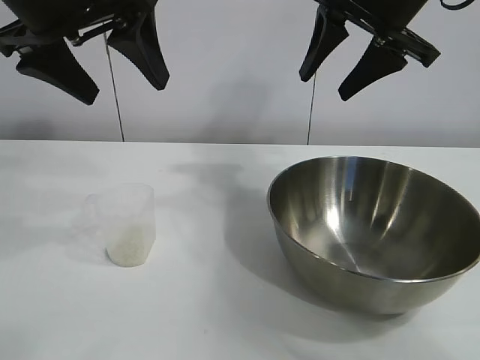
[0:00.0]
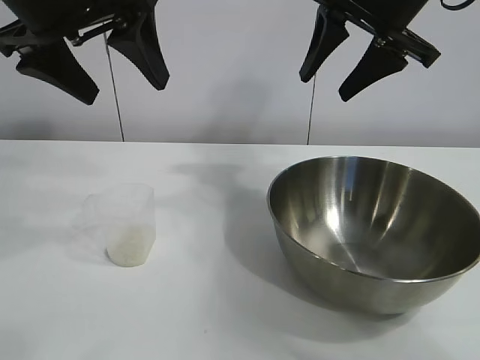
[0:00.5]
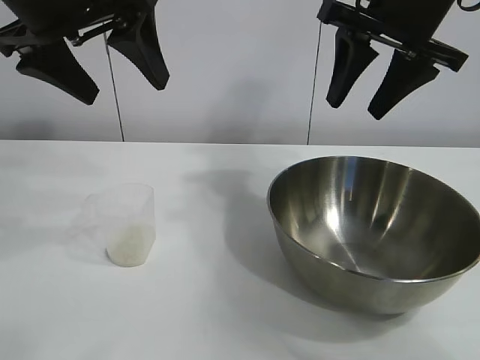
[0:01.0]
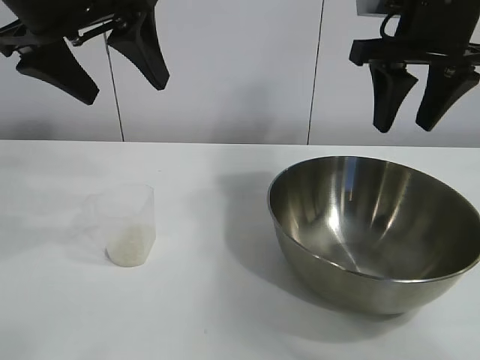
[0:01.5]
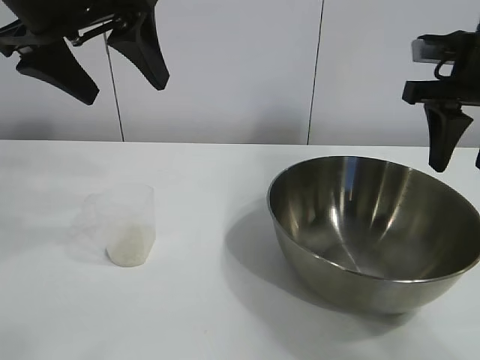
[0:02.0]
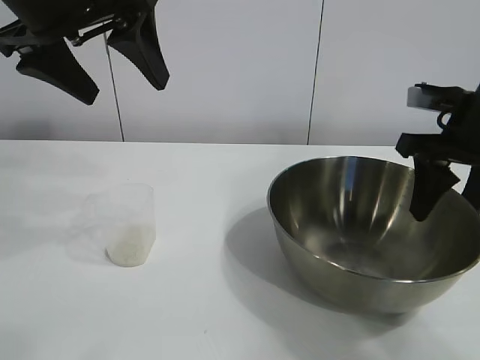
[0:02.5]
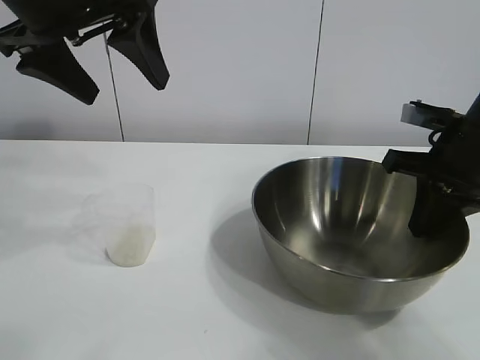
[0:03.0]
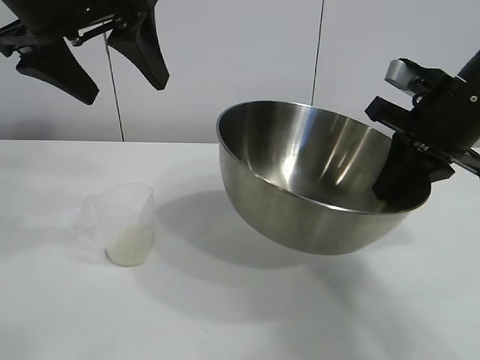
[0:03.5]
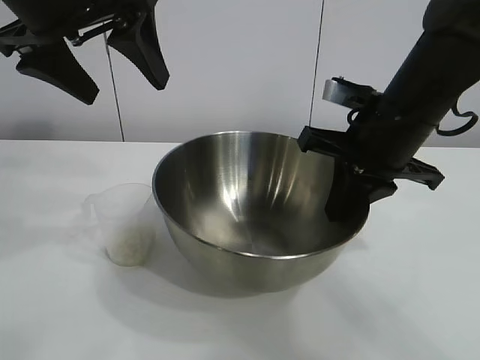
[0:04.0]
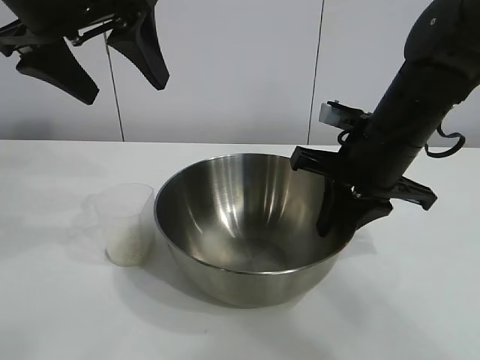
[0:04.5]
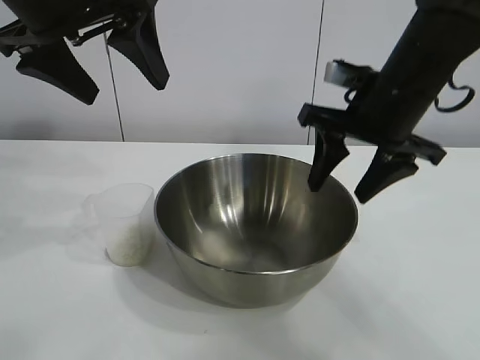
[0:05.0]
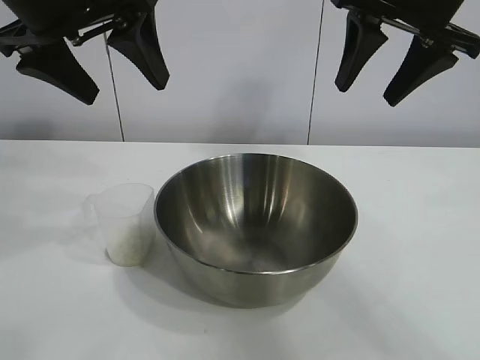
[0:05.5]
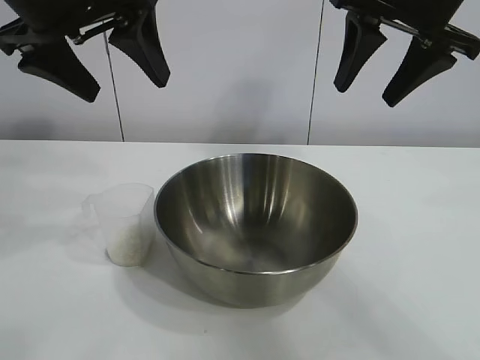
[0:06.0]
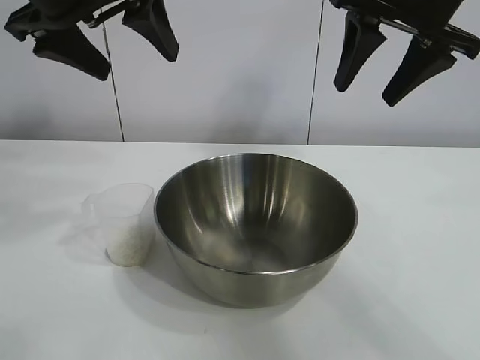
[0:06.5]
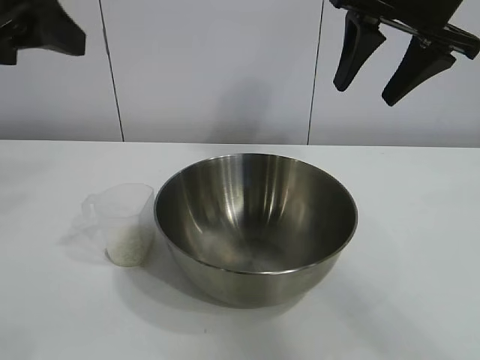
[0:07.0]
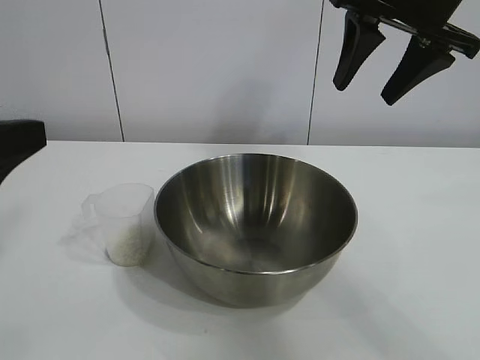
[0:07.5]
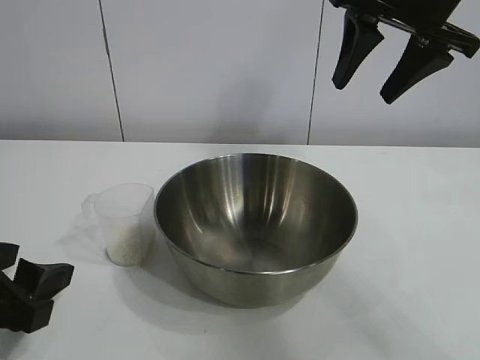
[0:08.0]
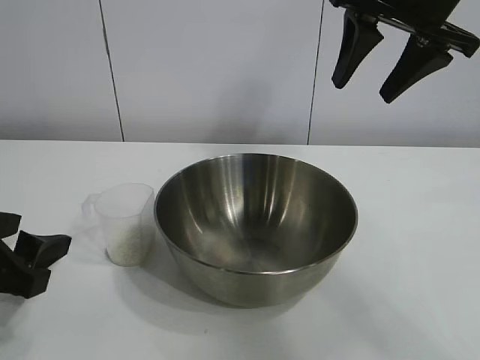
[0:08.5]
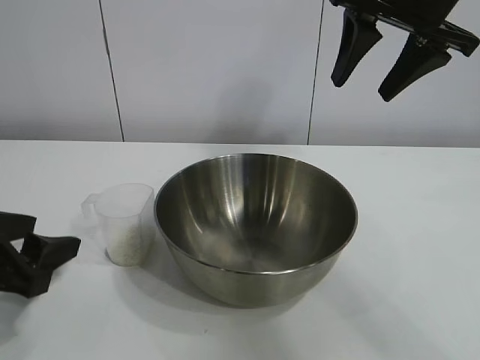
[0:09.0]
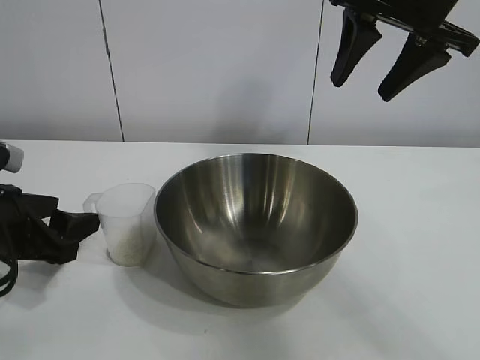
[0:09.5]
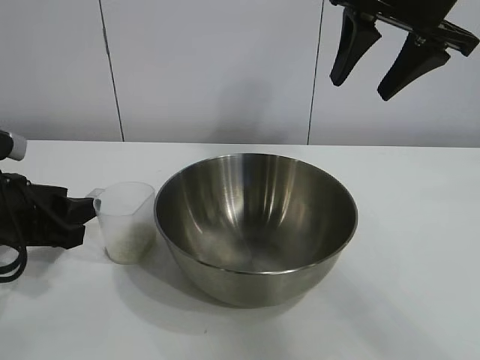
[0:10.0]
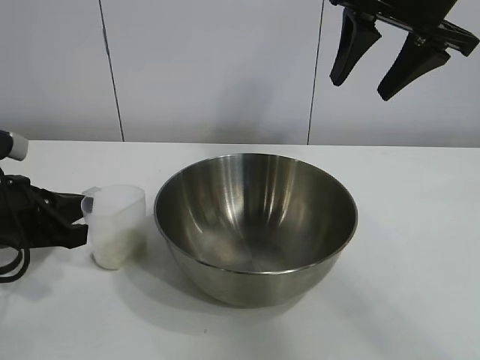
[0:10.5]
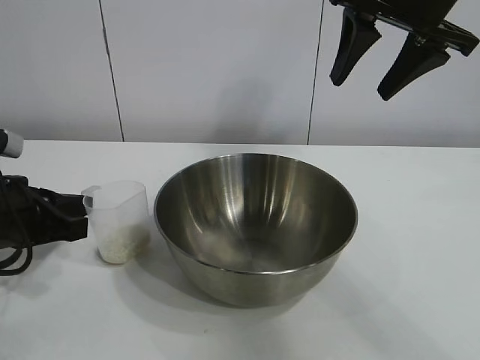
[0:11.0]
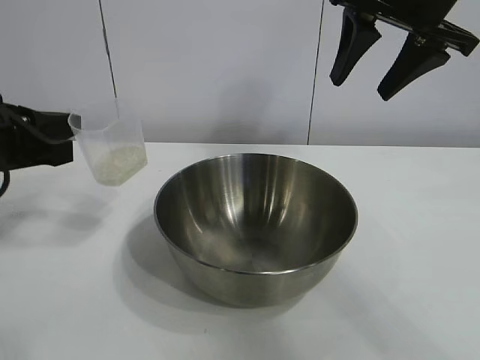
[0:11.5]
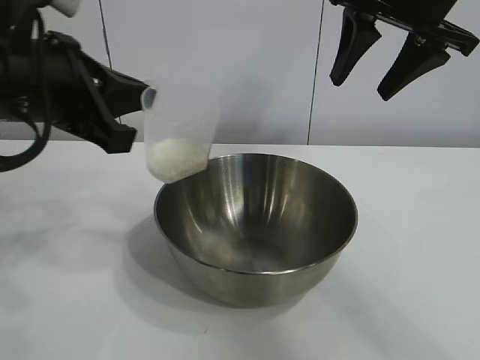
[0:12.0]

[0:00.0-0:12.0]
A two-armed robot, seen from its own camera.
Task of the whole recording: the right gripper grasp the rice container and place it in the center of the table, the left gripper grasp the rice scoop and pour the rice into the rice container.
Step, 0:01.0 to 0:04.0: Move the bowl in the center of view with right gripper.
Step, 0:04.5 to 0:10.5: Grasp the cup with rice in it with left gripper.

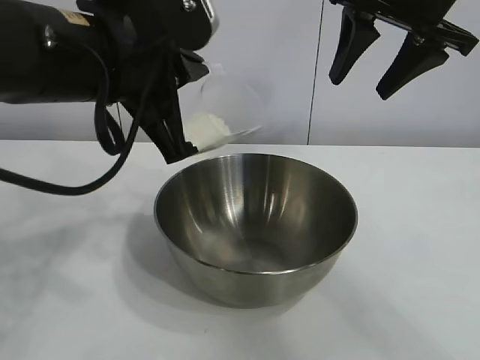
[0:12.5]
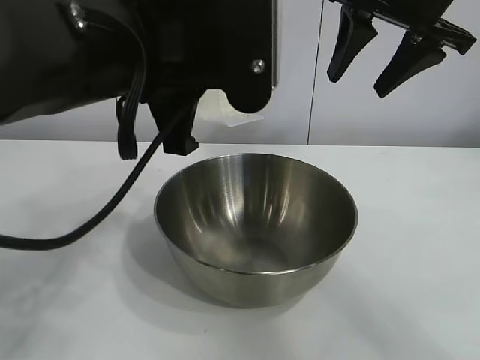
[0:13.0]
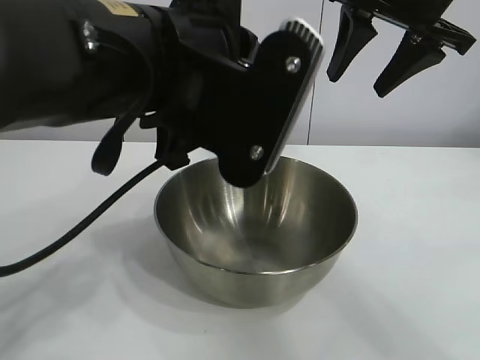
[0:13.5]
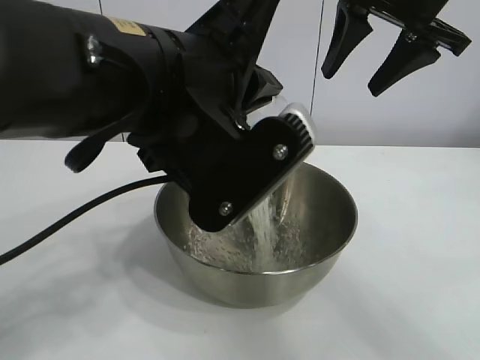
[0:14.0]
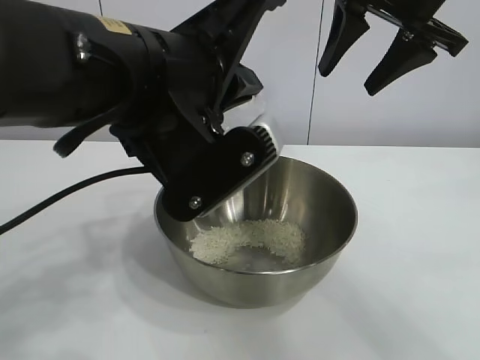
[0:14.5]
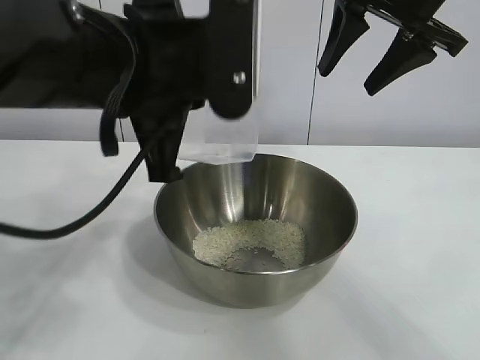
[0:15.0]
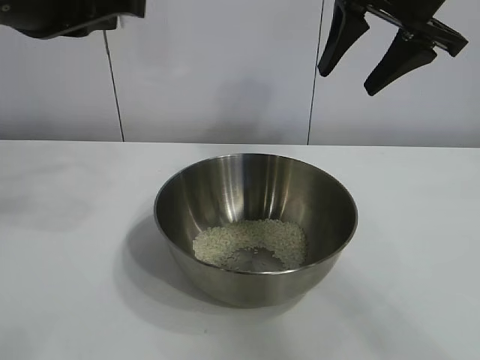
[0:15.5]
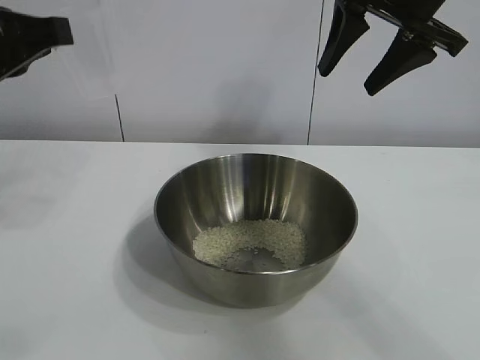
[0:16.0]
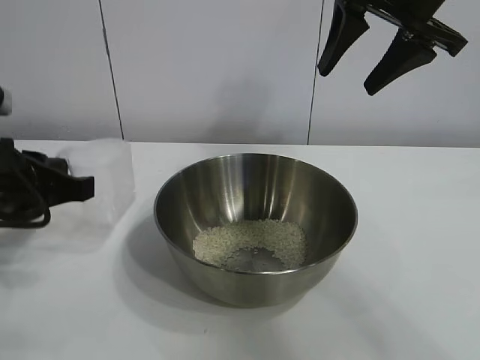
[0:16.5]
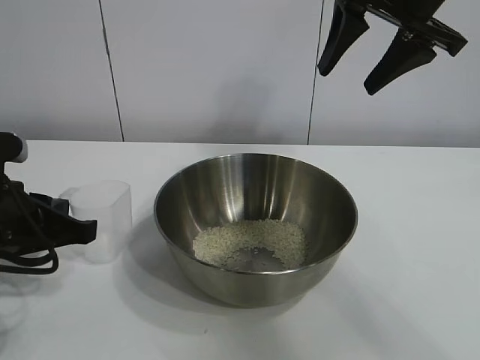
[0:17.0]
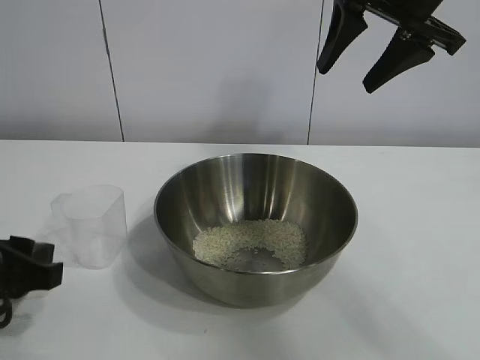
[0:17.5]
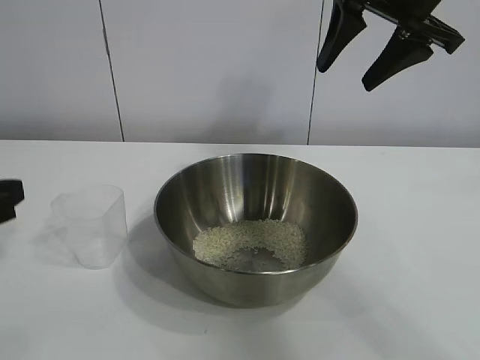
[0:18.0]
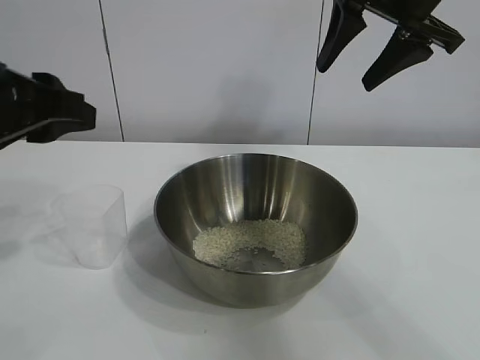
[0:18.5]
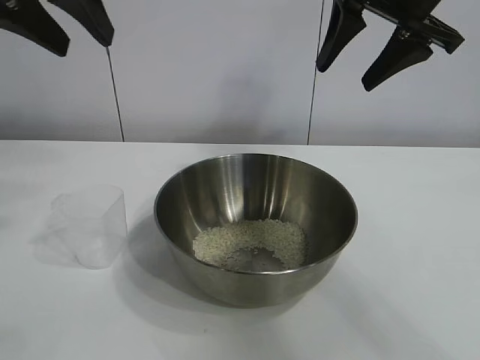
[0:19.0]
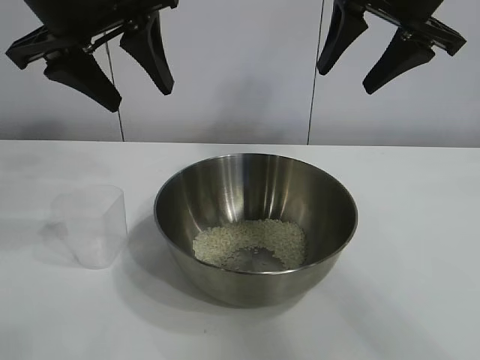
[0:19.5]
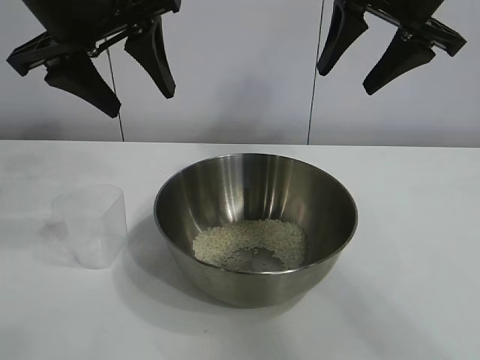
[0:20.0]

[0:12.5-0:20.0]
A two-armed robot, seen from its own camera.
Task of the whole recording: the right gripper grasp the rice container and place it in the center of the table, the left gripper grasp the rice scoop and pour the rice into the rice container.
Step, 0:12.5 to 0:14.5: Pour the rice from the cup into the bowl with the left gripper.
Step, 0:15.0 to 0:17.0: Place the cup on the table with the left gripper.

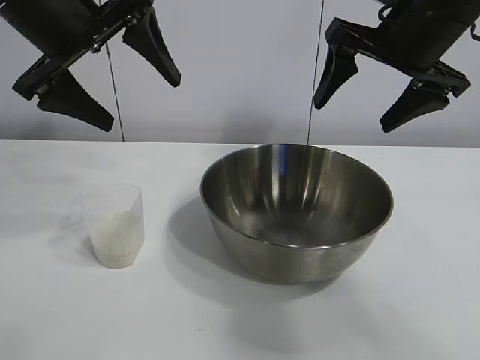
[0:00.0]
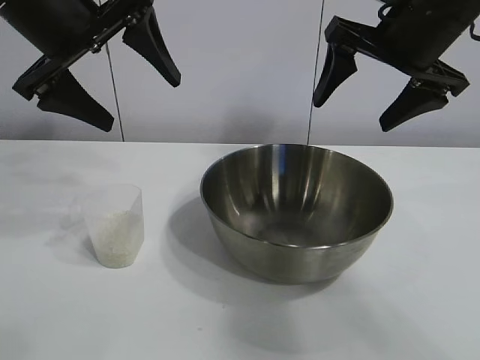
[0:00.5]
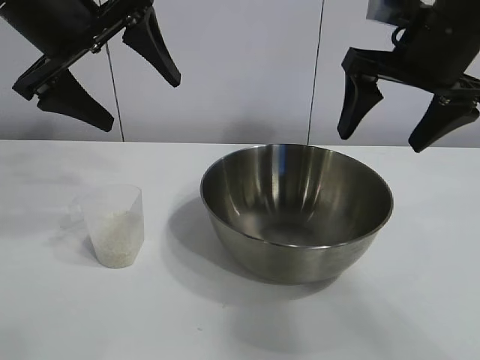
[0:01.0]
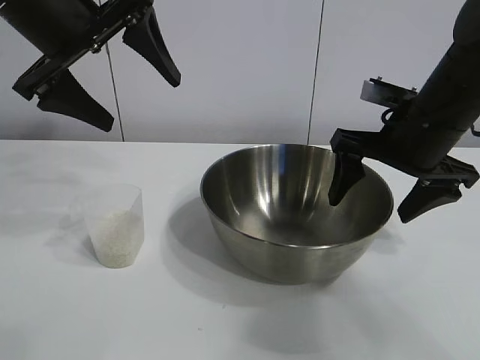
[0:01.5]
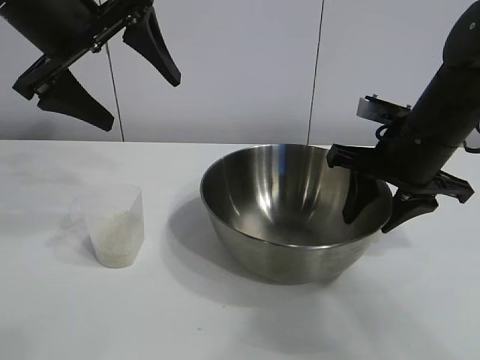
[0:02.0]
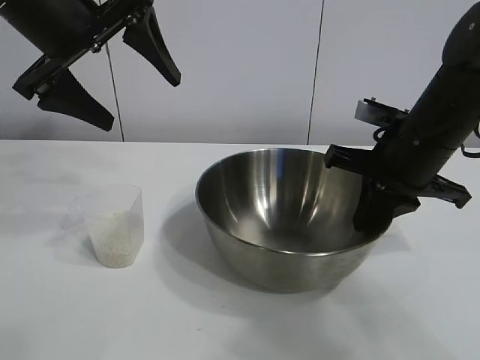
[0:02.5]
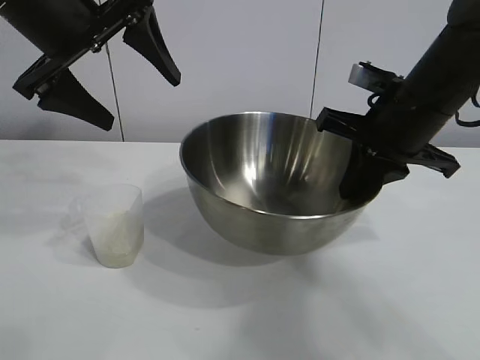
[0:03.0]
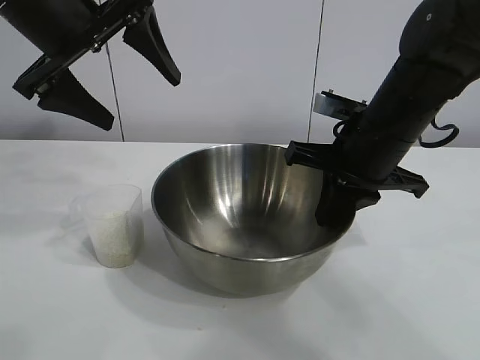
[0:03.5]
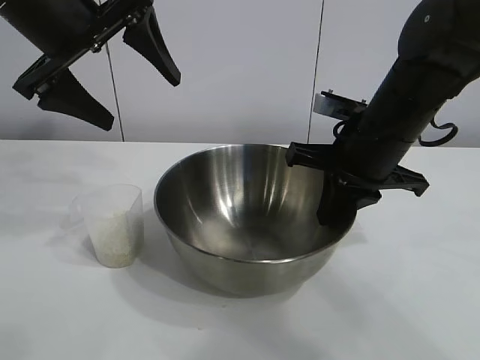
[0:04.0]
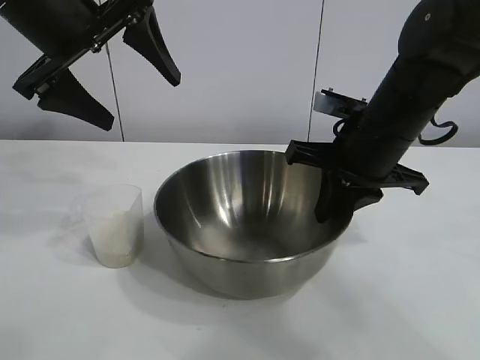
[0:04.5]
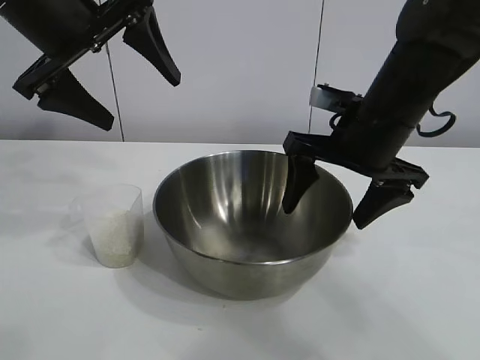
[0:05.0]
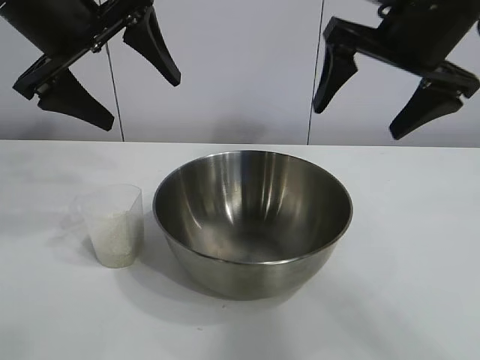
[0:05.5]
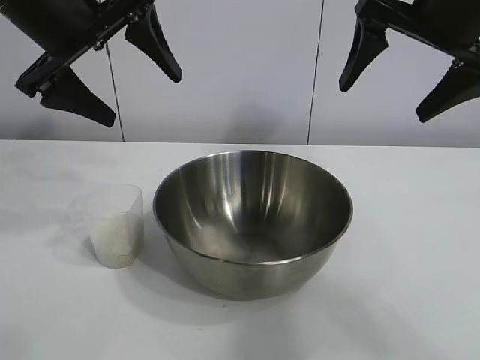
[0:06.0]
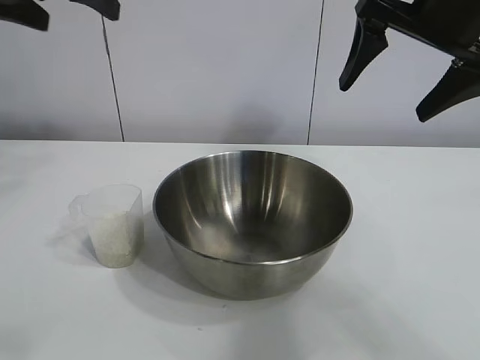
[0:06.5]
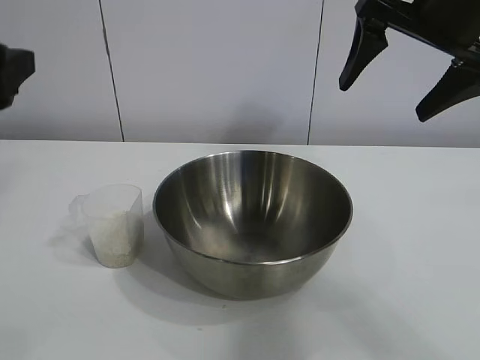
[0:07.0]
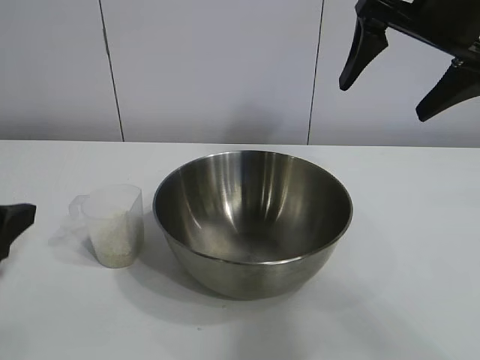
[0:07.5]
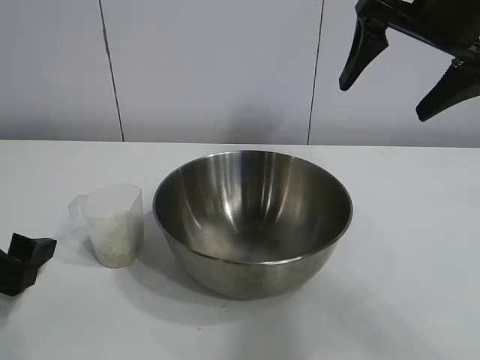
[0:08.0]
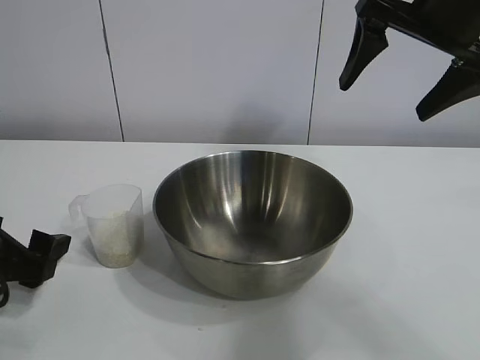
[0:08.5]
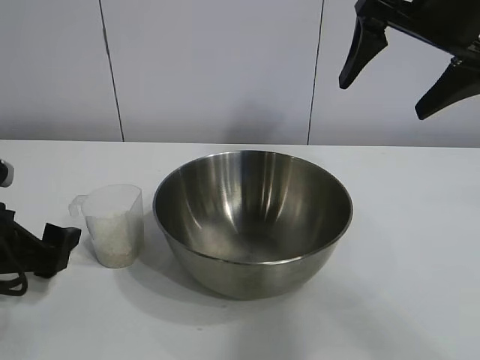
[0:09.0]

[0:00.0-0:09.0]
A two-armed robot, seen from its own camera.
Task of the whole recording: the right gripper grasp the rice container and place it in the center of the table, the left gripper grasp the rice scoop and pour the rice into the rice container.
Step, 0:01.0 to 0:04.5: Move the bowl in the center of view with right gripper.
